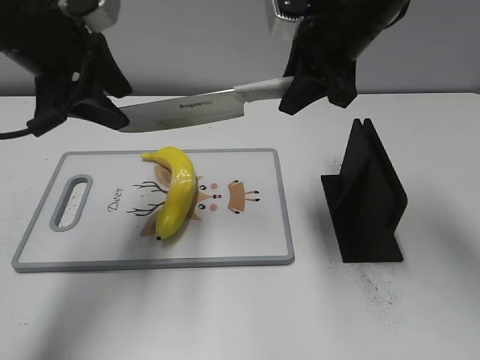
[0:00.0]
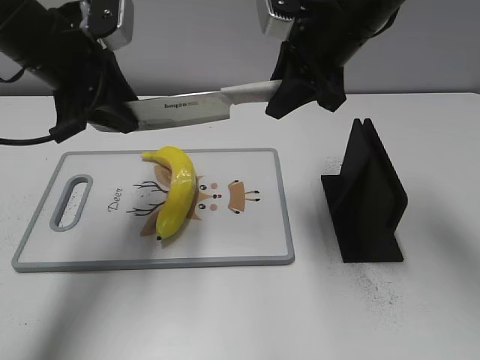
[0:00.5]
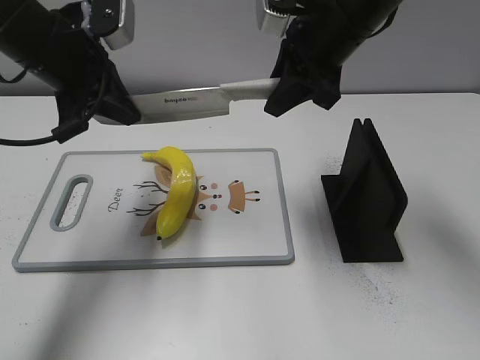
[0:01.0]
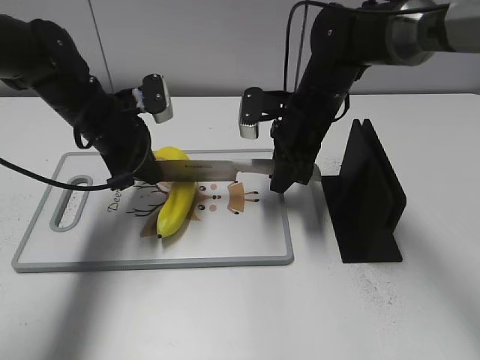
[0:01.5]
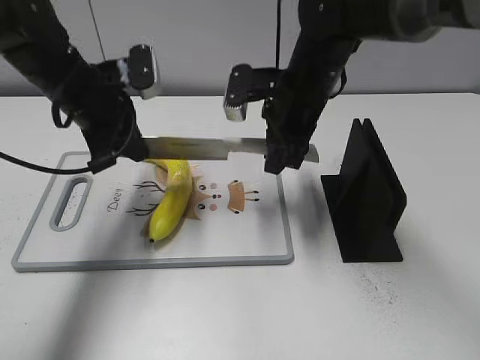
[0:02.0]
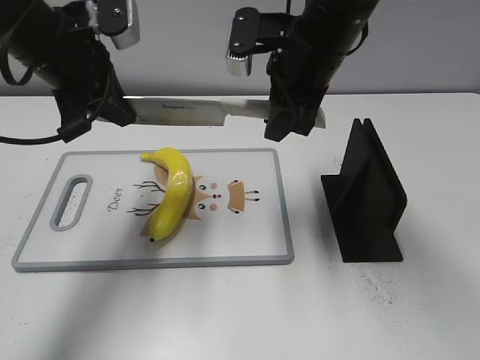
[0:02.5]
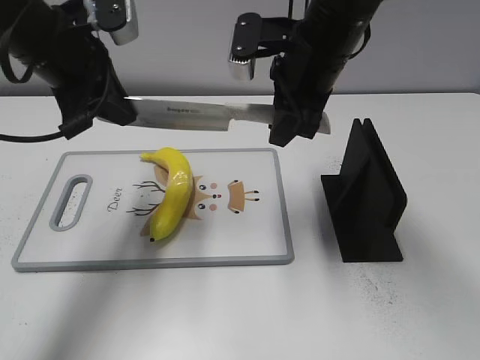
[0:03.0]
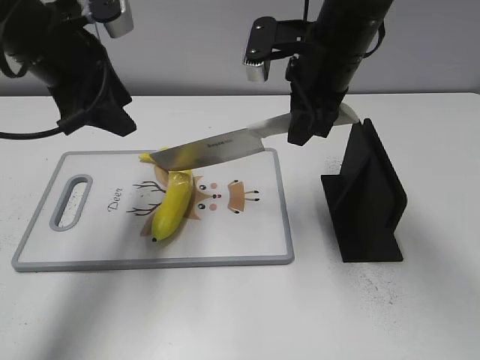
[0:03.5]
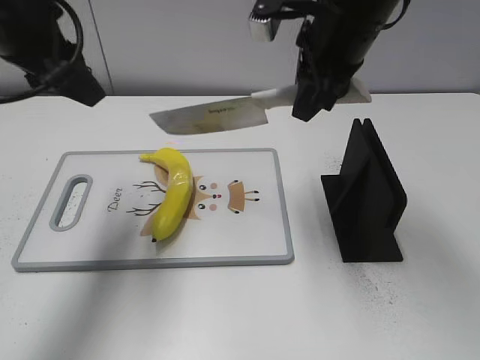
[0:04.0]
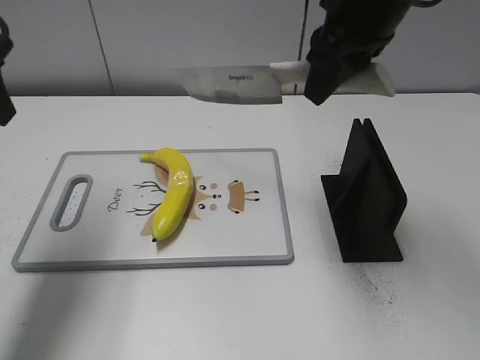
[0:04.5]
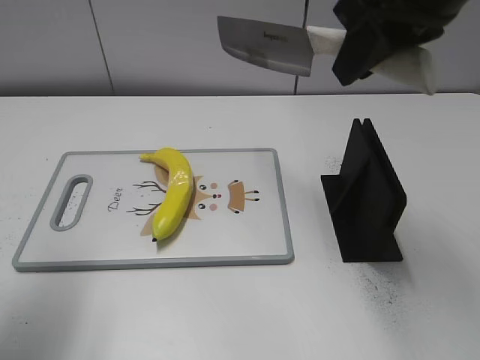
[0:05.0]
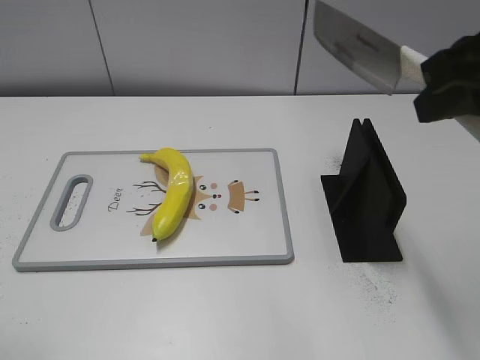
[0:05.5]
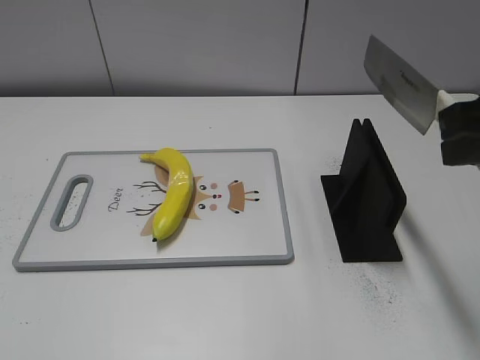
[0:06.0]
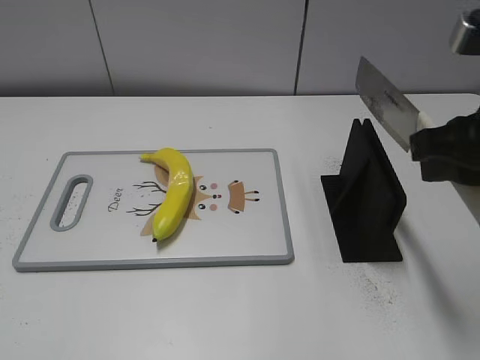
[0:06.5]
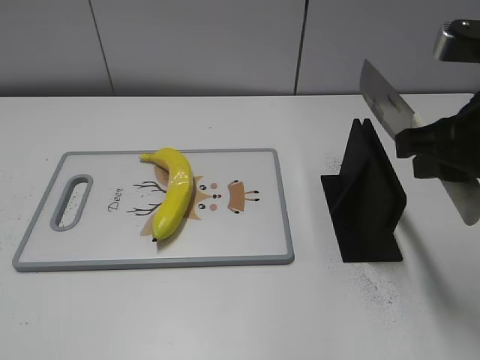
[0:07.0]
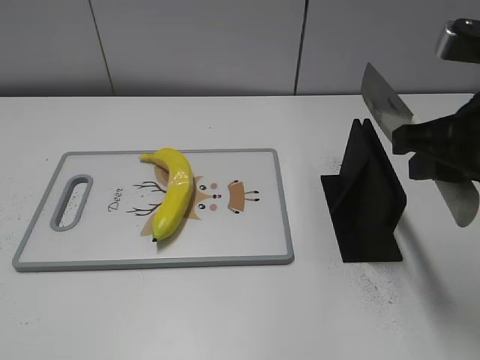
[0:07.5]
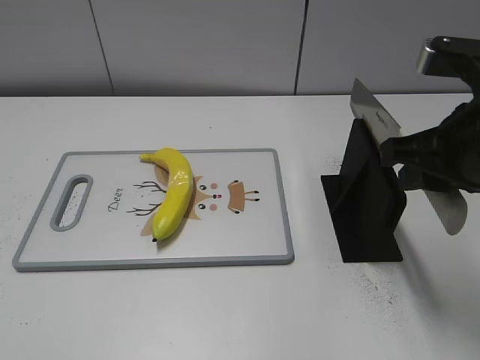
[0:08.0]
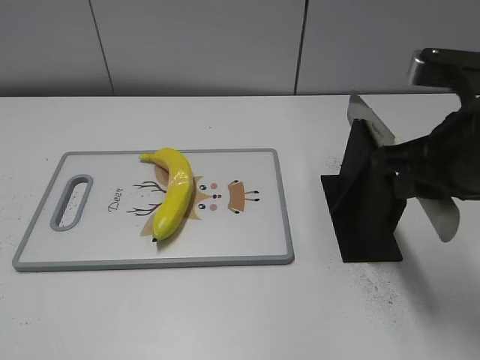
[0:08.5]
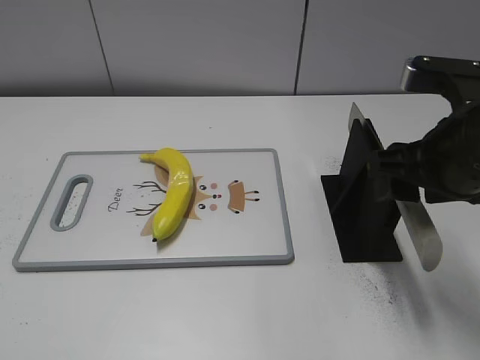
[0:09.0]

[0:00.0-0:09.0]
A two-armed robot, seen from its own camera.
Task of the whole recording: cut plastic banana.
Step, 0:00.0 to 0:03.0: Lift the knife with your right hand.
Step, 0:03.5 to 0:04.0: Cut the banana with your right hand.
Step, 0:04.5 to 0:05.5: Lift the knife with your right hand.
0:00.0 to 0:02.0: The two grippers go some 10 cm downward. The left gripper closes its fingers.
0:02.0 to 0:04.5: The left gripper heads upward, backward and to the left, covering about 20 cm, and opens up. The right gripper moves upward, approximately 15 cm.
0:04.5 to 0:07.0: The left gripper is displaced backward by some 30 cm. Meanwhile the right gripper goes approximately 15 cm backward, to the right and downward.
0:07.0 to 0:09.0: The right gripper opens its fingers.

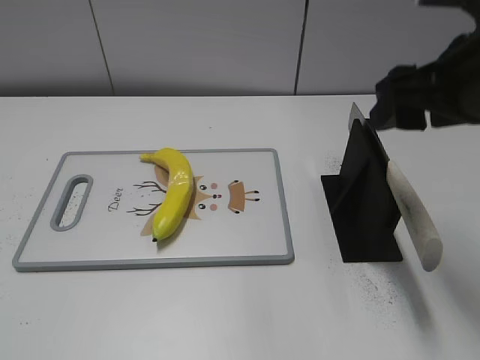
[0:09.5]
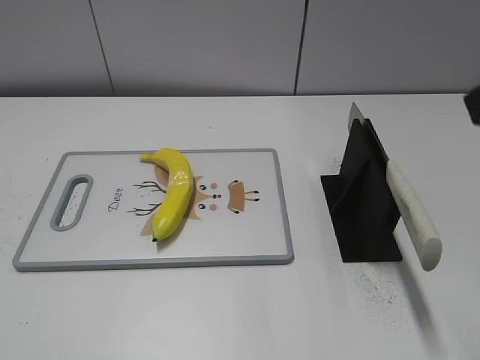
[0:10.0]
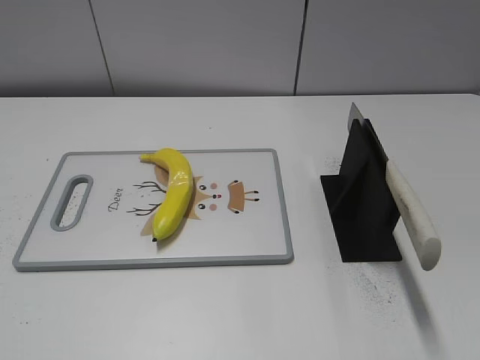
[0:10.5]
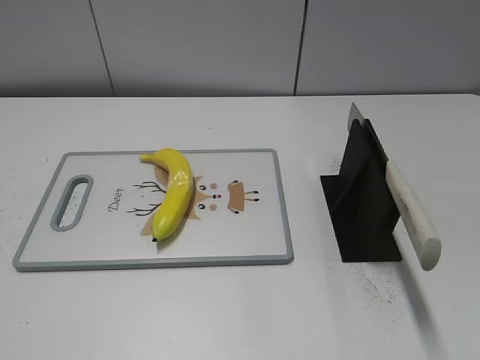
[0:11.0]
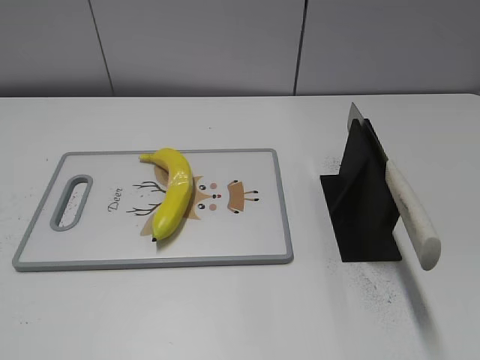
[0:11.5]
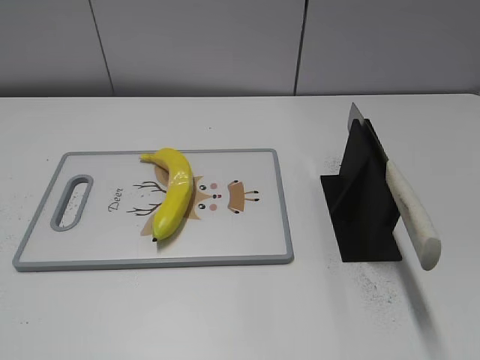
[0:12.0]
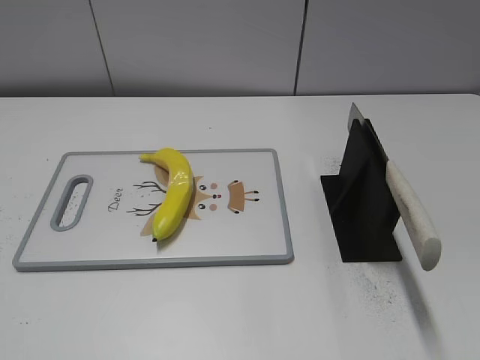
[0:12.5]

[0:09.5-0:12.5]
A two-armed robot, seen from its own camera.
Task of the whole recording: cut plastic banana.
Step, 0:09.5 to 0:12.5: Place the knife on the storage rack with your right hand.
0:09.5 to 0:11.0: The right gripper shifts roughly 25 cm backward and to the right.
